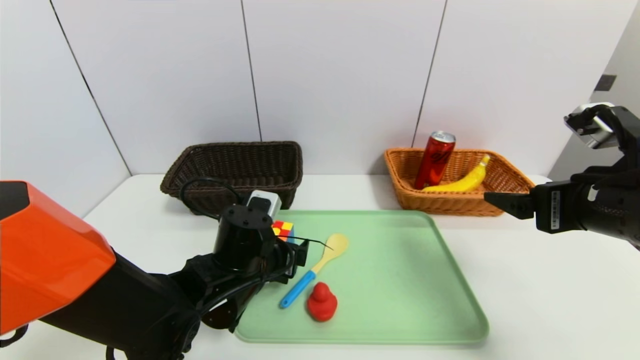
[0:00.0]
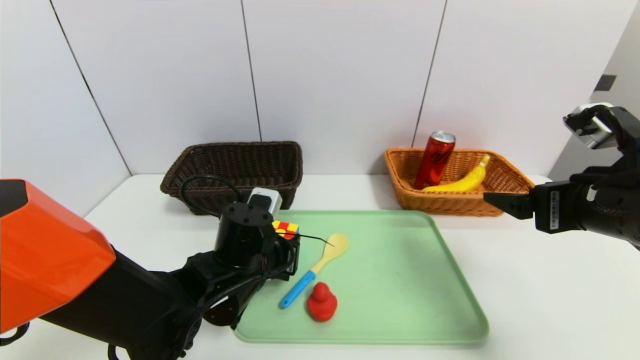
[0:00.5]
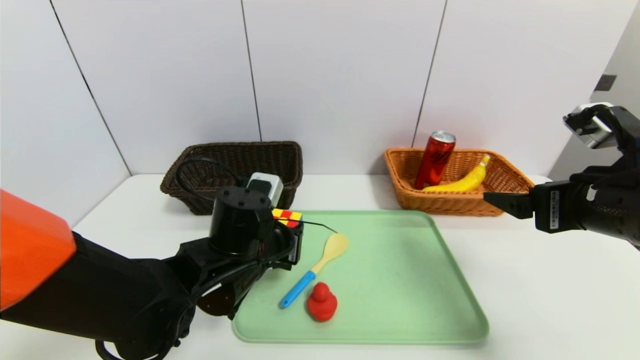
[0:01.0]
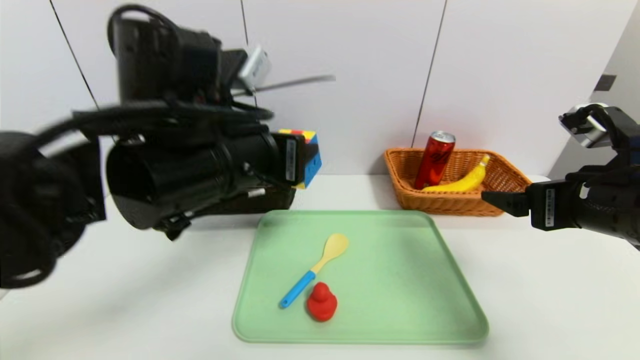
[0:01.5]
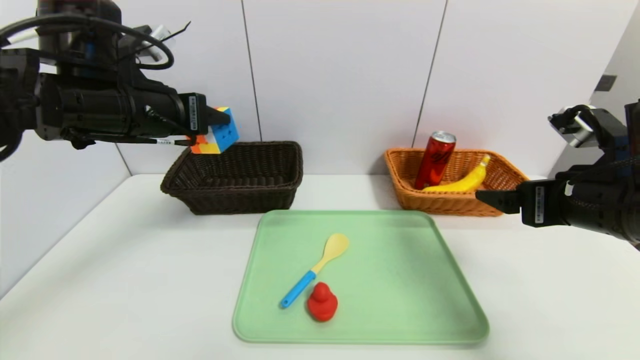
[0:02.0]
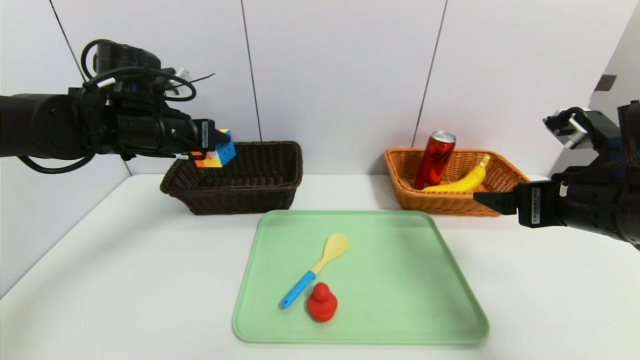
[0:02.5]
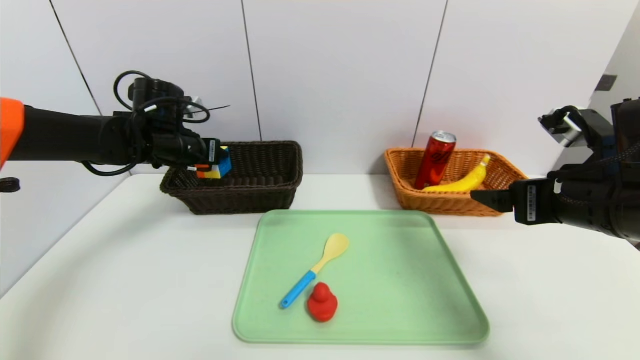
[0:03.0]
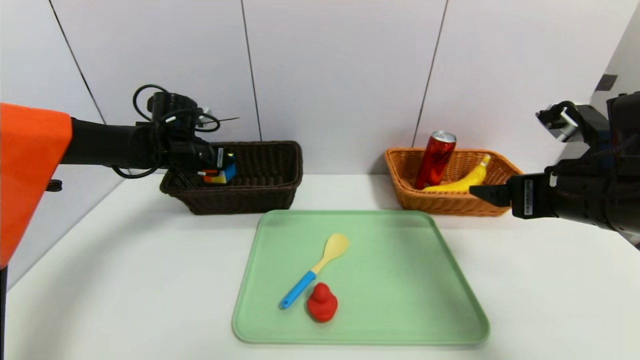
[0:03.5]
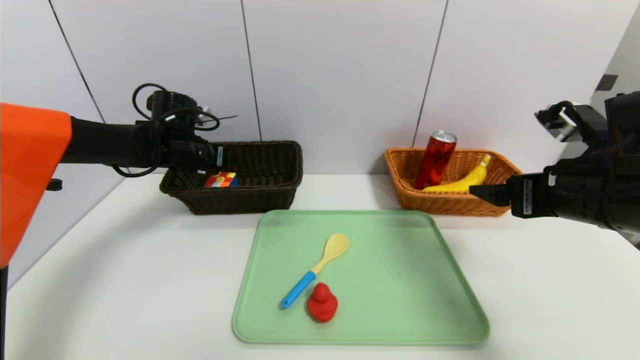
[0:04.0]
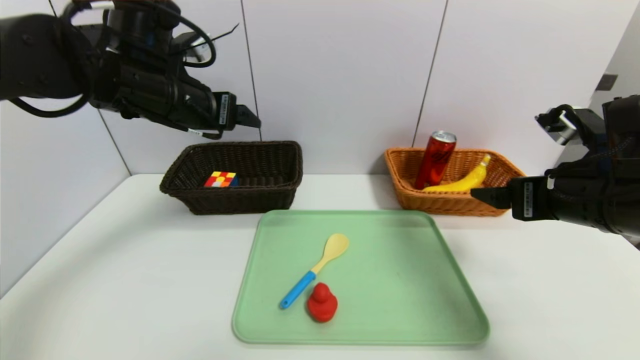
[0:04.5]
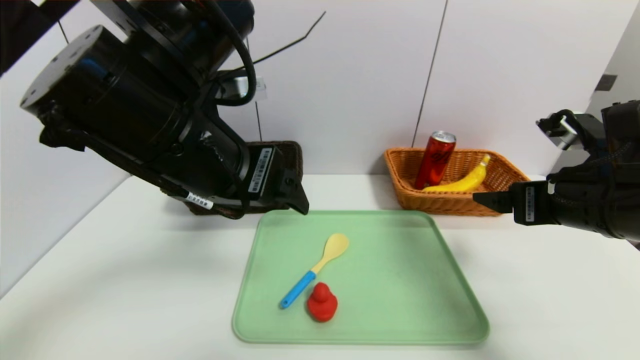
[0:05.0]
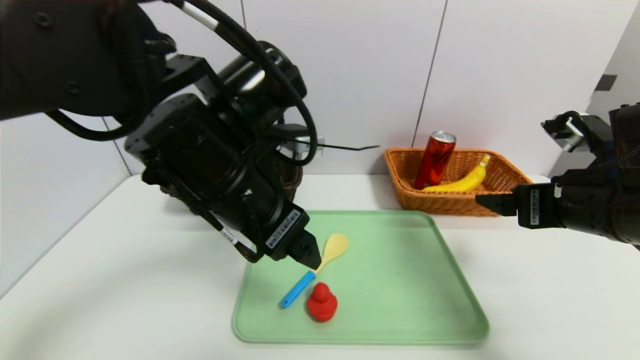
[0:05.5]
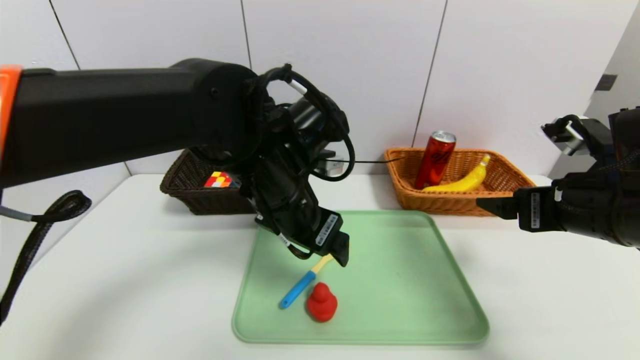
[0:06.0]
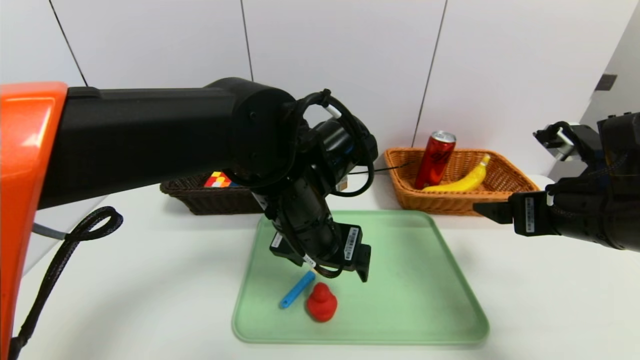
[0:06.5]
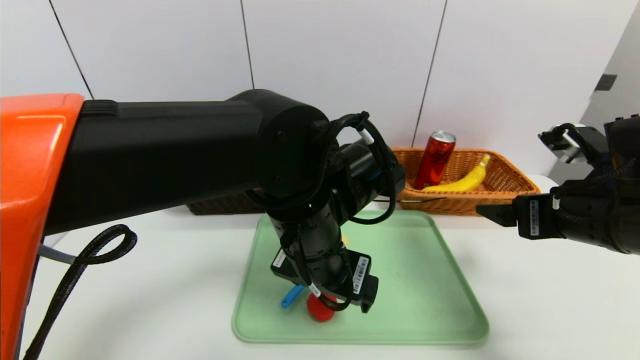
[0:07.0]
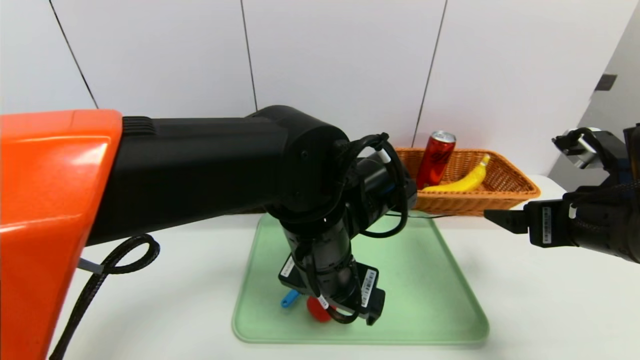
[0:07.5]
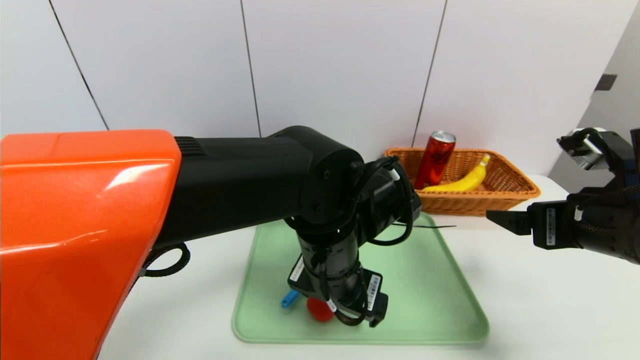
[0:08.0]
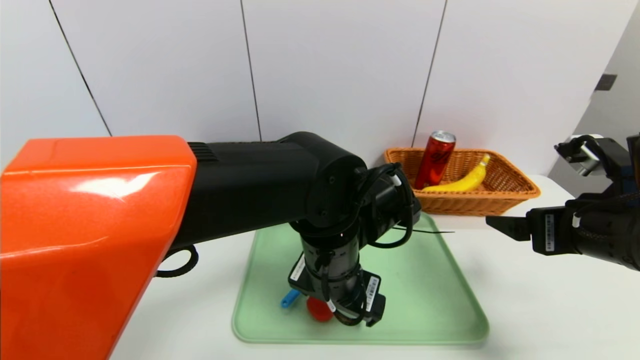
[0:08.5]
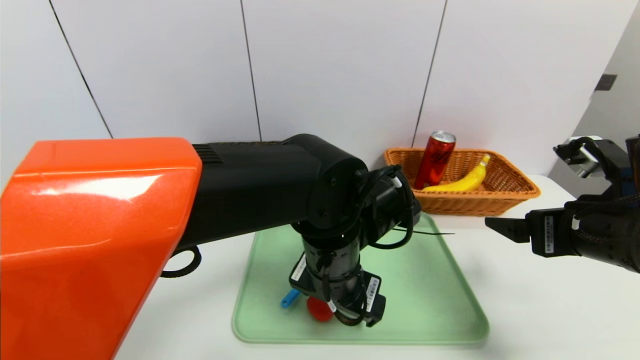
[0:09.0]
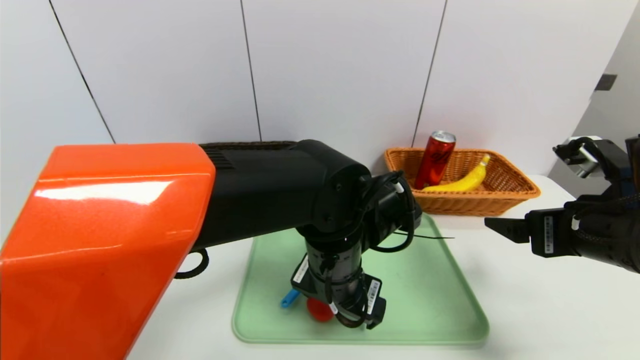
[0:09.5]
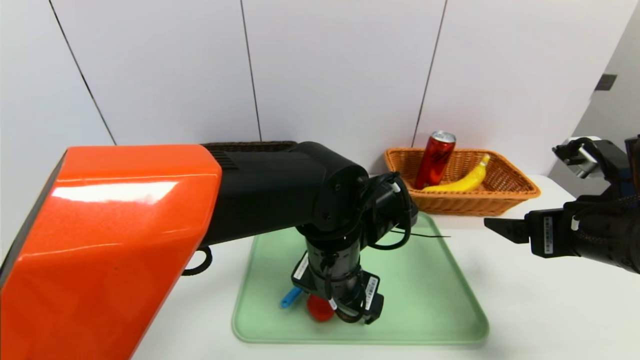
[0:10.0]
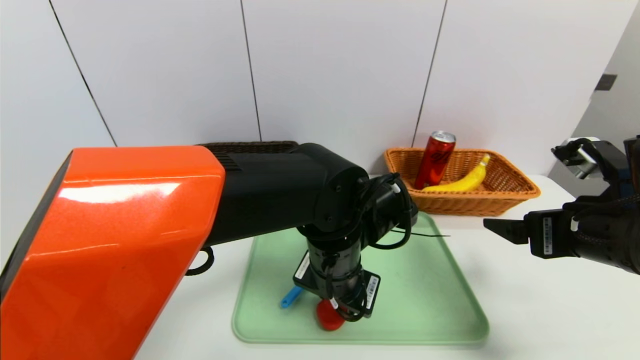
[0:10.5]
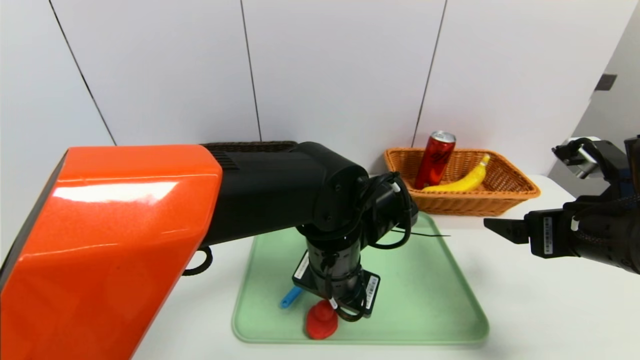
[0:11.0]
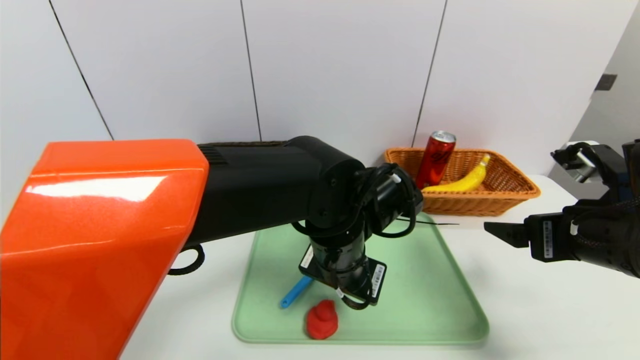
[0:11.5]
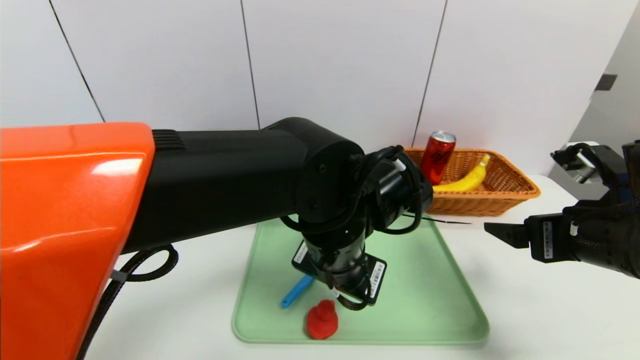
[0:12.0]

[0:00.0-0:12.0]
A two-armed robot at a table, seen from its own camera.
Task of the whole recording: place the food in the right basket with the right gripper, and place the non food items in the left basket with the left gripper.
Step, 0:00.0 to 0:04.0: Grasp the rubiks cube and put it in the left basket.
0:00.0 to 0:02.0: The left gripper heads upward and to the left, covering some 25 cm, and closes up.
0:02.0 to 0:04.0: The left gripper goes about 20 cm forward and downward.
0:04.0 to 0:06.0: The left gripper travels to the right and backward by approximately 25 cm.
0:06.0 to 0:08.0: The left gripper goes approximately 10 cm to the right and downward.
0:08.0 to 0:10.0: The grippers move only a little.
0:10.0 to 0:12.0: The left gripper closes, then reopens.

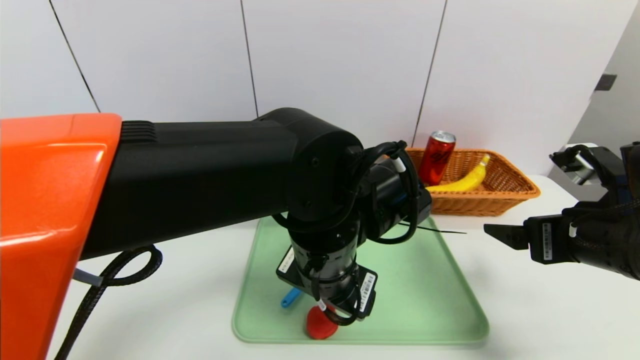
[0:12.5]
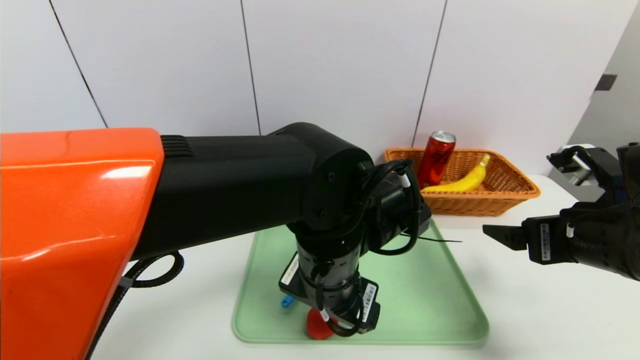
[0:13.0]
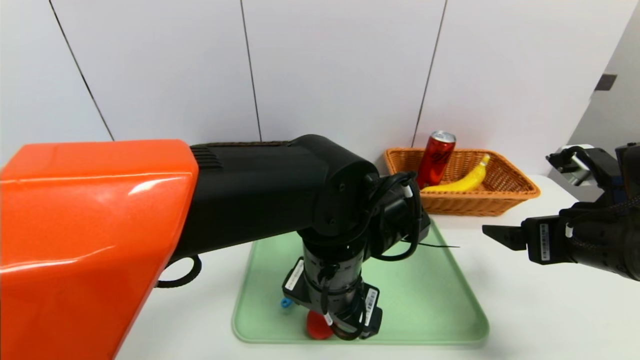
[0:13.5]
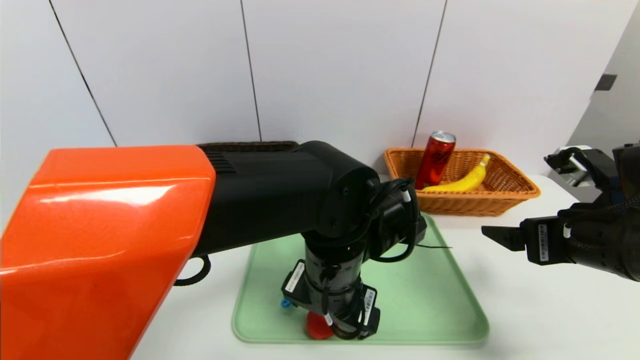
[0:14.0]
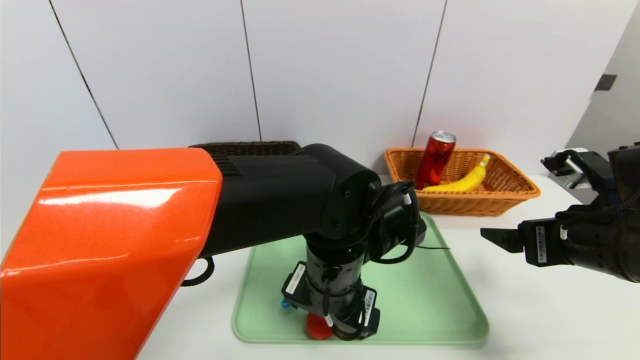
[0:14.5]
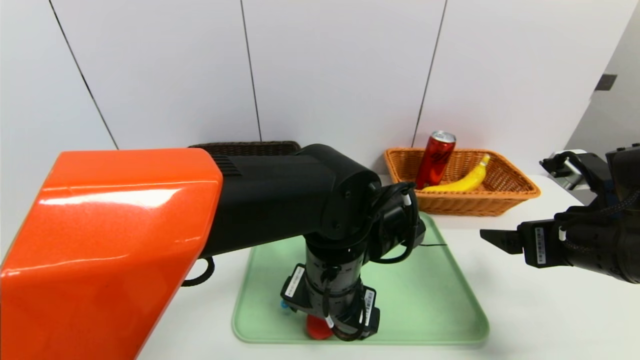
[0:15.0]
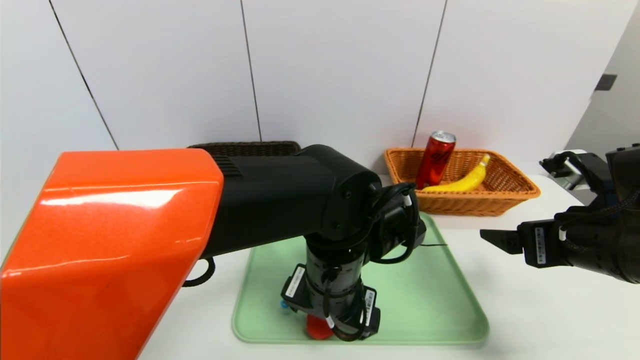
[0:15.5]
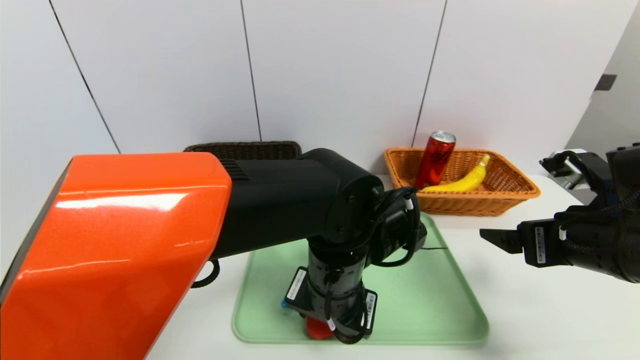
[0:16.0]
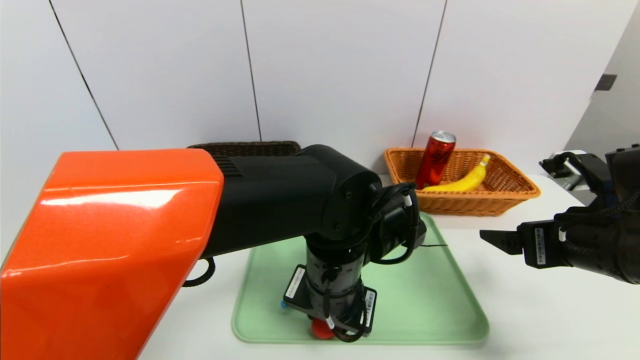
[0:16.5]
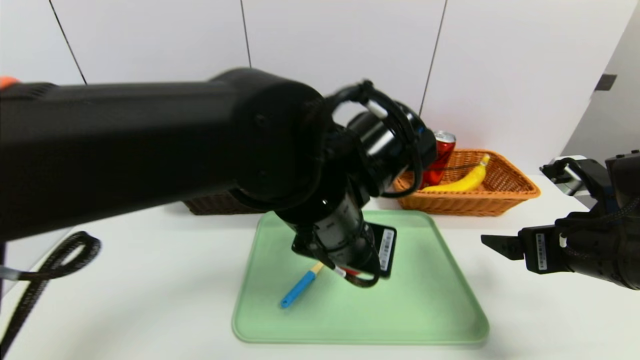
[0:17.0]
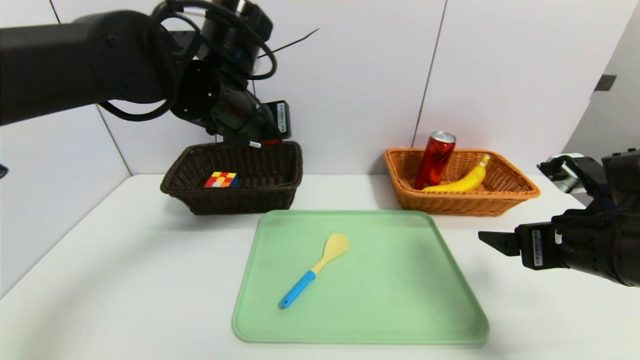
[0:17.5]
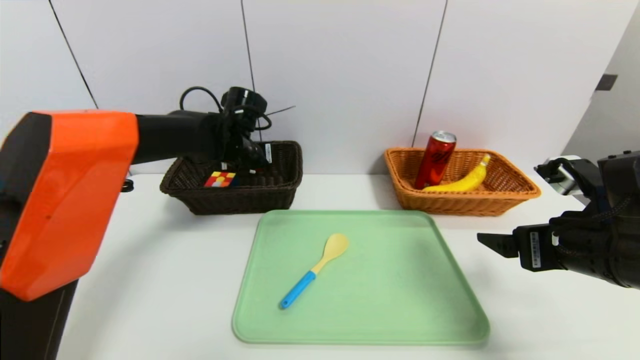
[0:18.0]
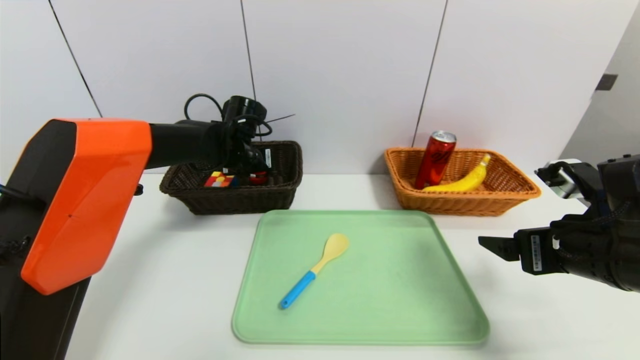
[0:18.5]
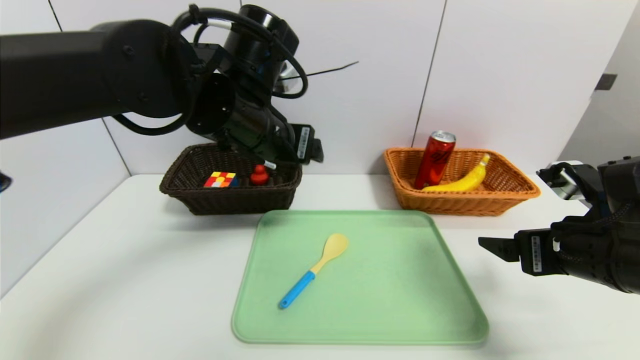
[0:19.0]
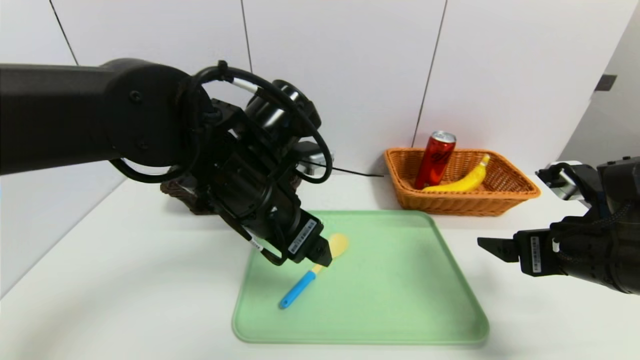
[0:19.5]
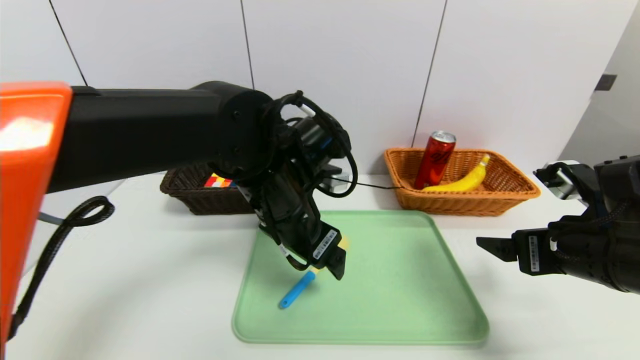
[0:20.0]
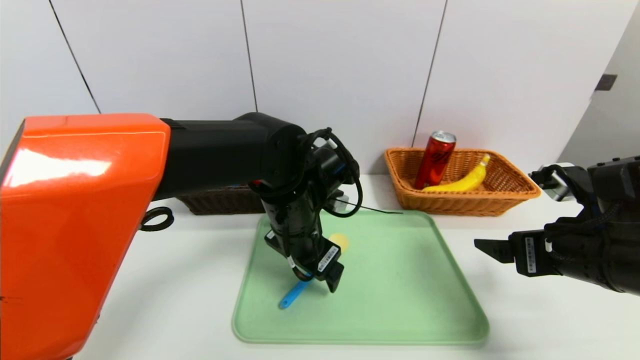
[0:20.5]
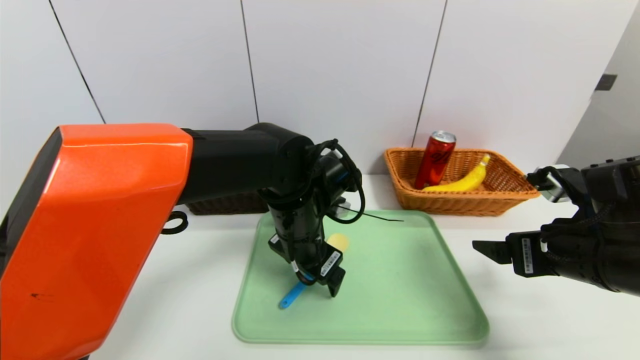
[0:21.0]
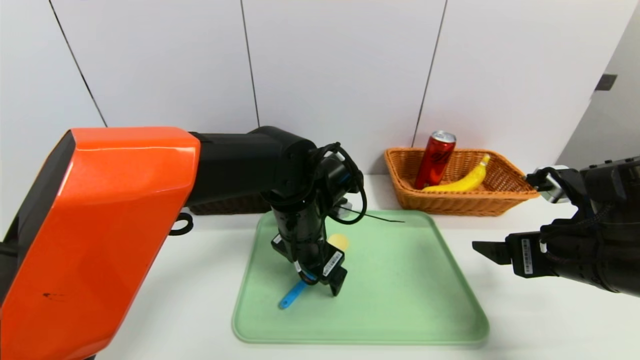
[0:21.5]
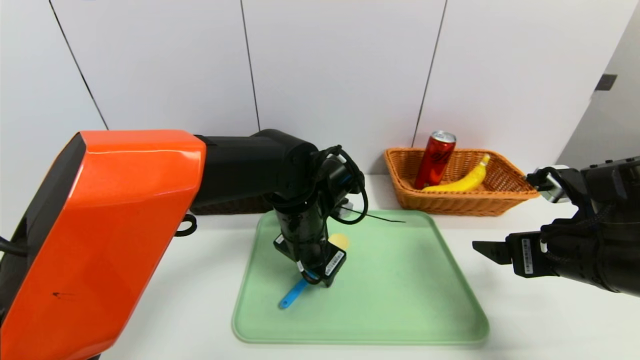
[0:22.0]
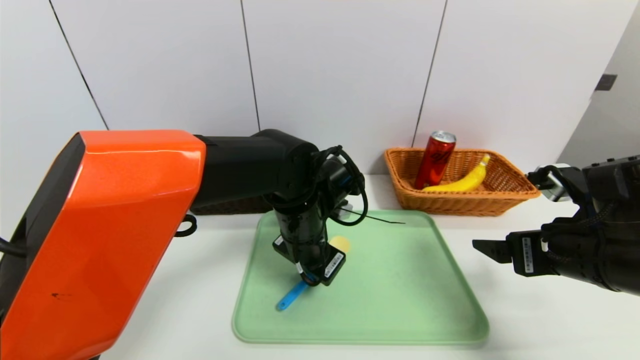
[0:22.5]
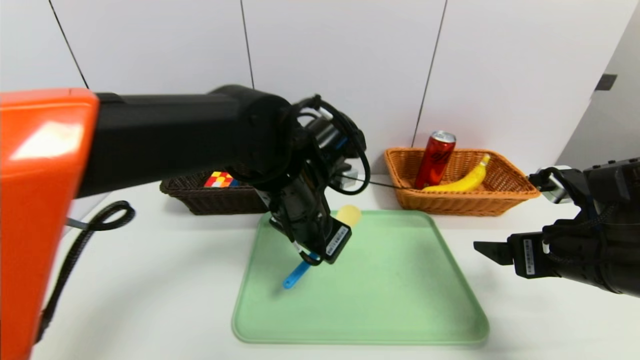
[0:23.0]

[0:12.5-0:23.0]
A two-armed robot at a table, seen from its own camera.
Task of the whole recording: place the food in the right basket with the right gripper, and place the non food items in the left basket with the left gripper.
Step, 0:12.5 to 0:18.5: Grasp the red duck and put it in the left basket.
0:14.5 to 0:16.5: The left gripper closes.
0:16.5 to 0:19.0: The left gripper travels upward and to the left by some 15 cm, moves roughly 25 cm forward and comes back, and opens up.
0:19.0 to 0:21.0: The left gripper shifts approximately 15 cm downward and to the right.
0:21.0 to 0:23.0: The left gripper heads upward, covering approximately 5 cm, and closes up.
